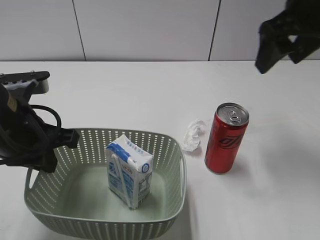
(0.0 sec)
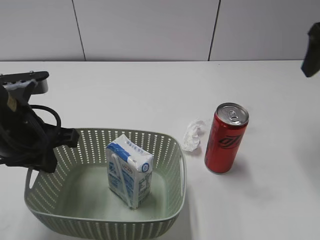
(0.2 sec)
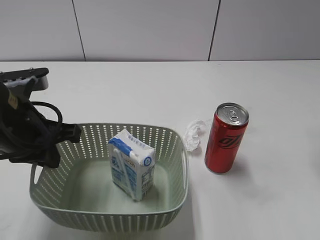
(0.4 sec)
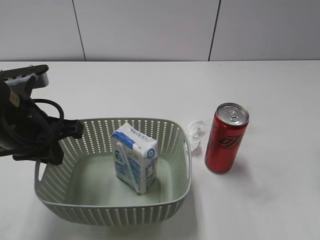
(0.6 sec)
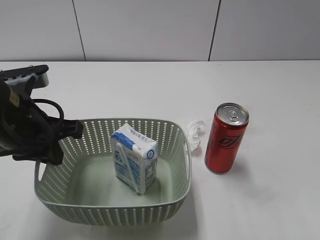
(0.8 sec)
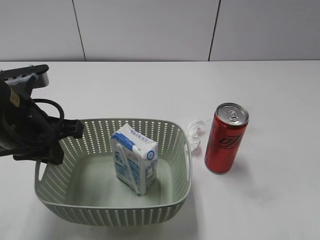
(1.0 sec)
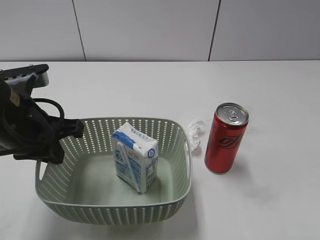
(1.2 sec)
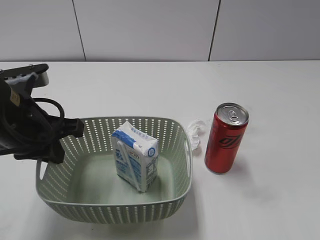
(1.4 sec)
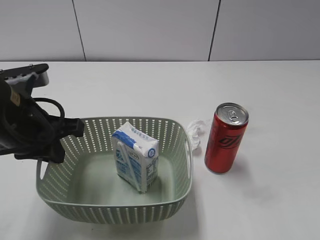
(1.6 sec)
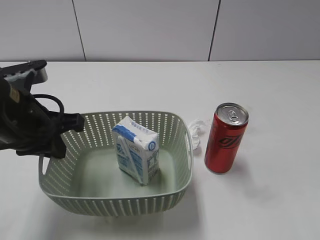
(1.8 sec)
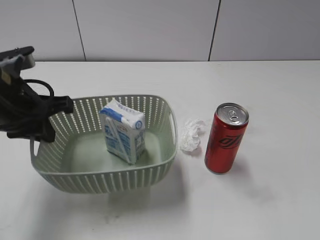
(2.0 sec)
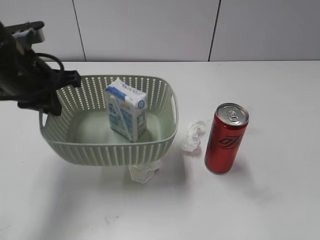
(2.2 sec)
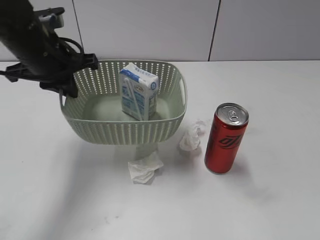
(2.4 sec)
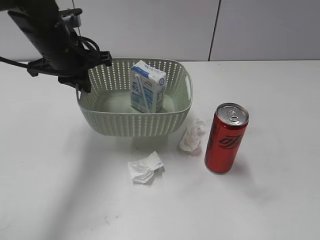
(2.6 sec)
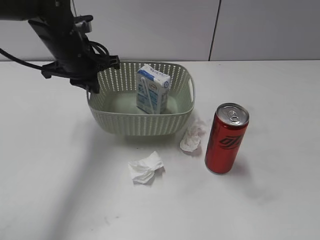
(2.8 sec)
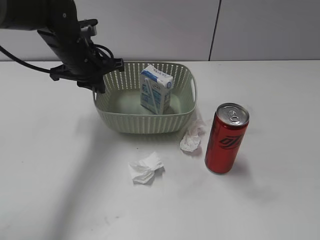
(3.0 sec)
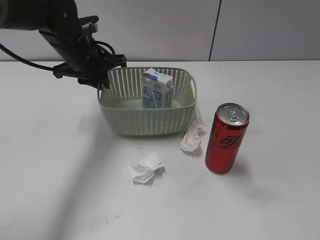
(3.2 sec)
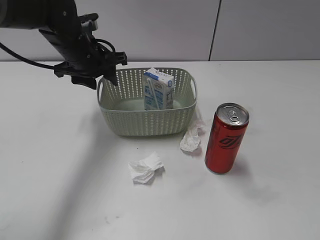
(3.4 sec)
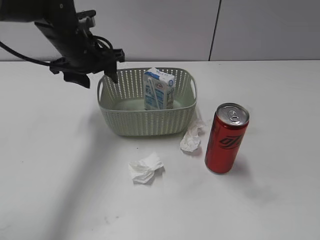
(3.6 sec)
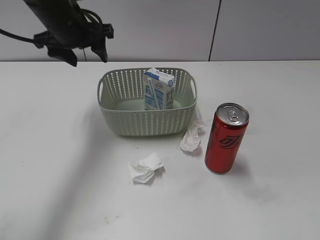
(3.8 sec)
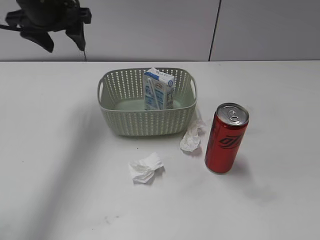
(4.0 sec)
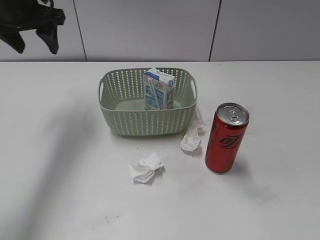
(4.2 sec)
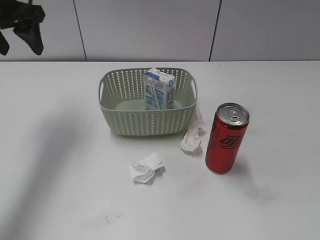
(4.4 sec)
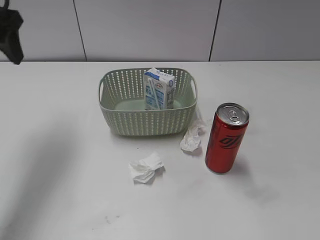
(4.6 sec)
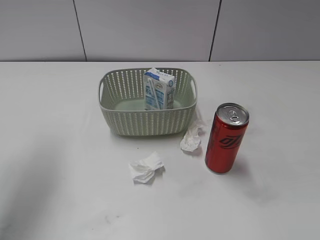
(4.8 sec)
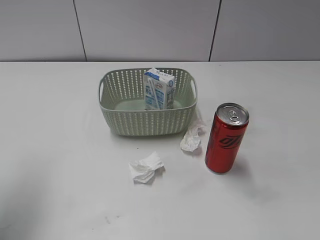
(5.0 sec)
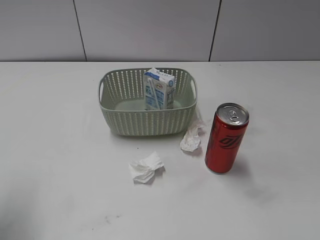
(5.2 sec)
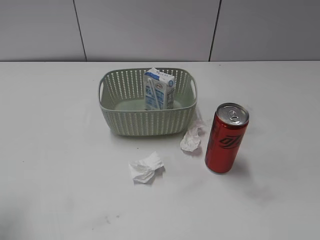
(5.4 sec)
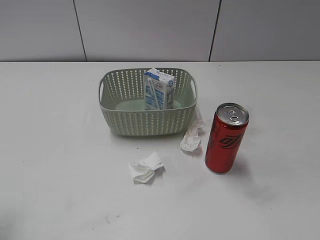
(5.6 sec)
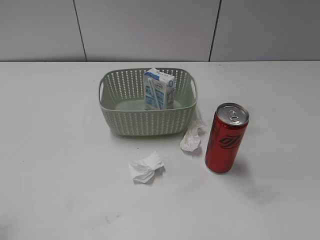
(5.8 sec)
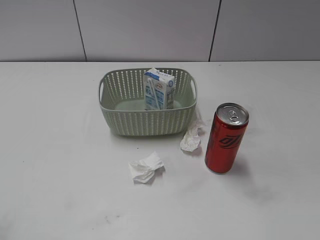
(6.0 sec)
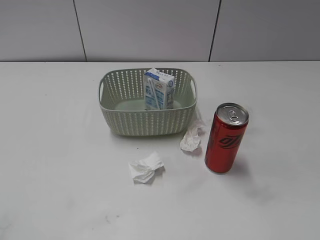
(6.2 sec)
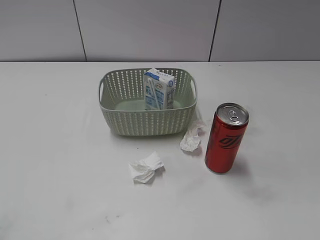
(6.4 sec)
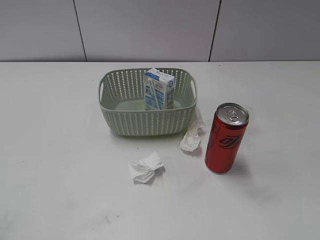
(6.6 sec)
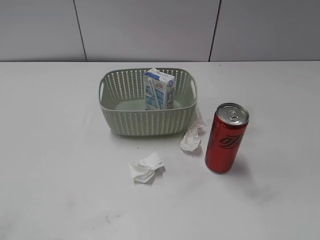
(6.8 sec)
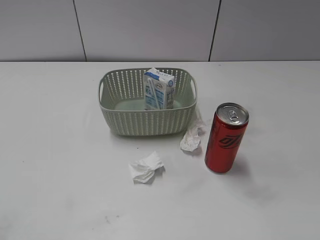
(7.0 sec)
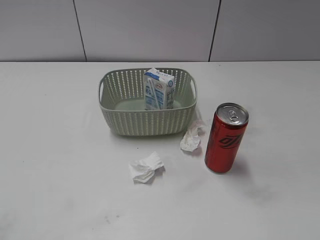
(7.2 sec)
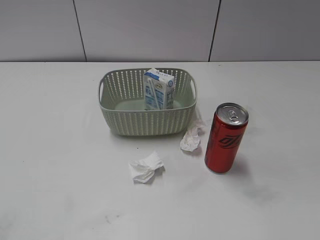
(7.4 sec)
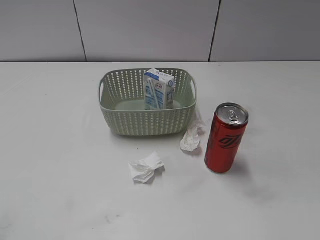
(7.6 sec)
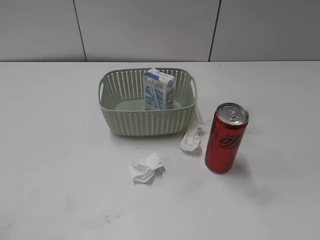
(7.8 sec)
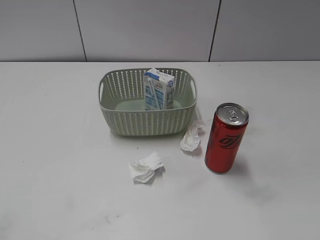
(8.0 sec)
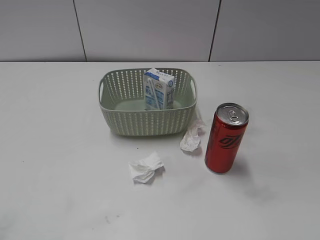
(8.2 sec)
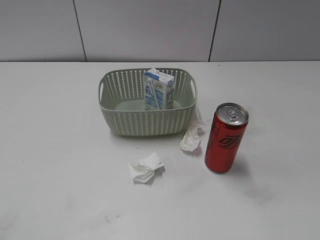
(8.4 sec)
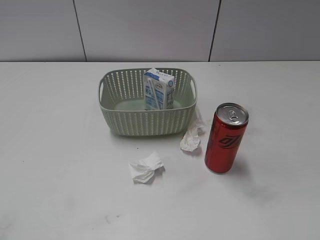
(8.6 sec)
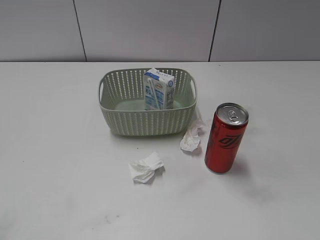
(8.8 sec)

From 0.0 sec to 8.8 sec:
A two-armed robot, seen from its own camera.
Step, from 0.0 sec to 3.6 sec: Place the basket on the table with left gripper.
From 0.0 sec to 1.4 sec: The right gripper goes approximately 25 cm backward.
From 1.4 sec to 3.0 sec: The left gripper is displaced forward by roughly 20 cm. The right gripper ends up some 5 cm from where it was.
From 3.0 sec to 4.4 sec: The left gripper shifts about 15 cm upward and to the left, and opens.
From 4.4 sec to 5.8 sec: The left gripper goes about 30 cm backward.
